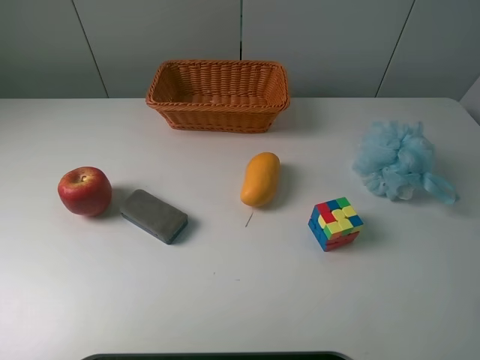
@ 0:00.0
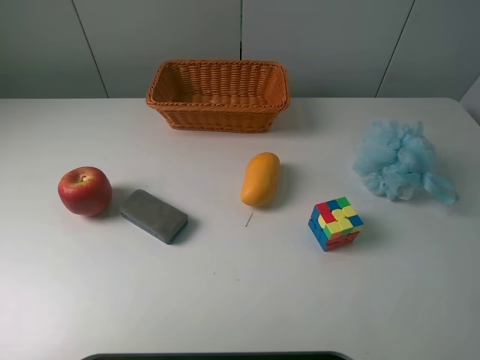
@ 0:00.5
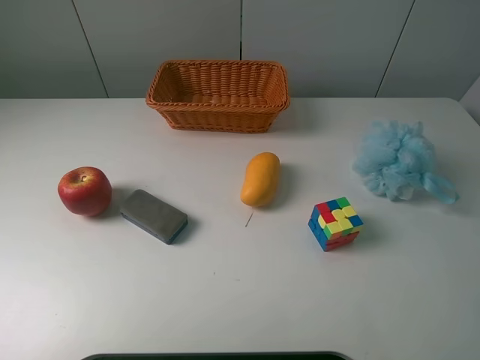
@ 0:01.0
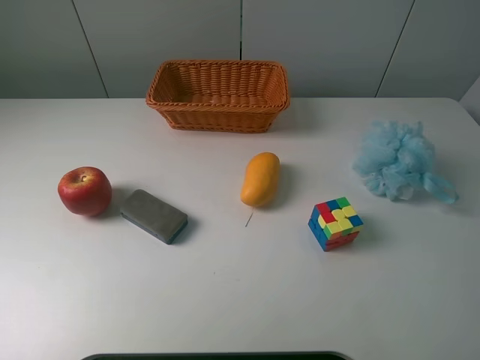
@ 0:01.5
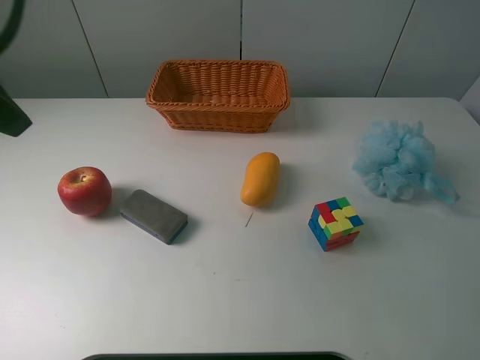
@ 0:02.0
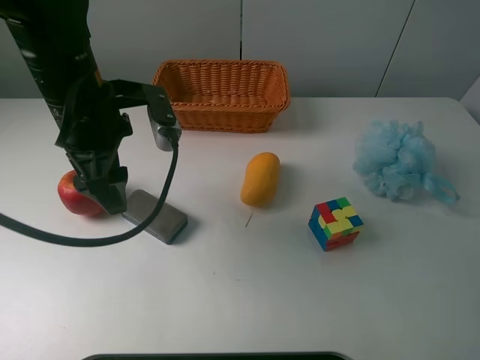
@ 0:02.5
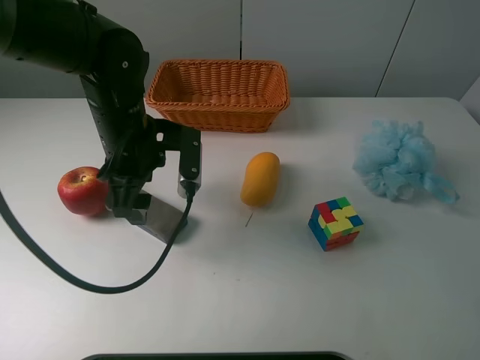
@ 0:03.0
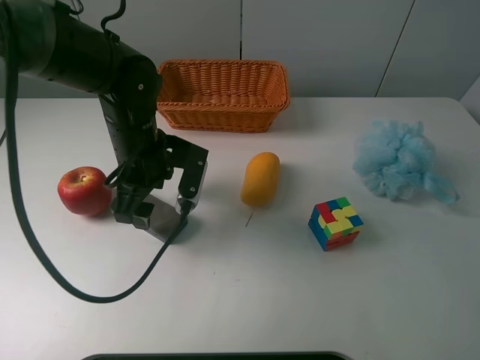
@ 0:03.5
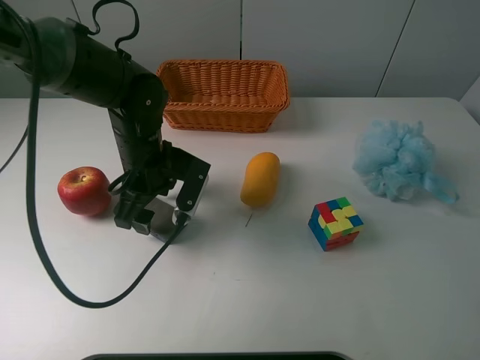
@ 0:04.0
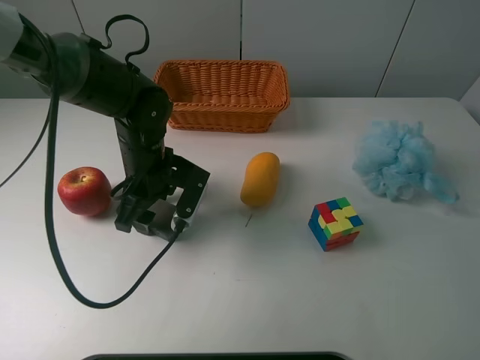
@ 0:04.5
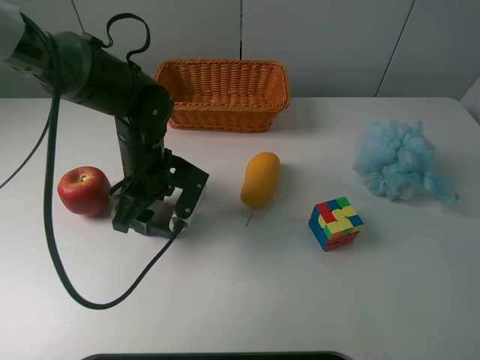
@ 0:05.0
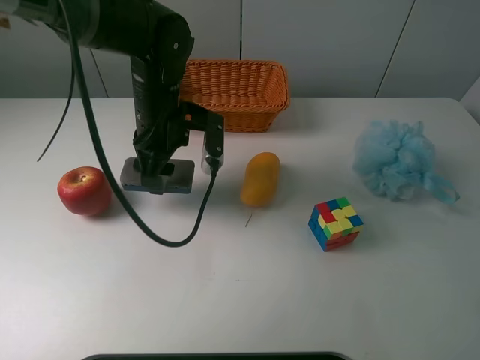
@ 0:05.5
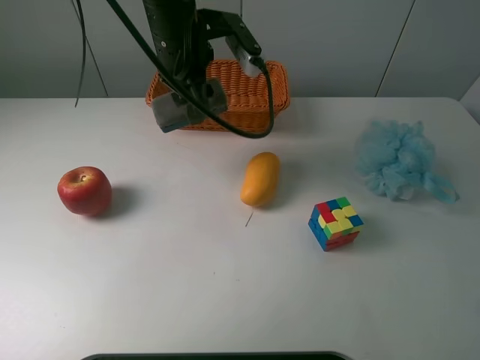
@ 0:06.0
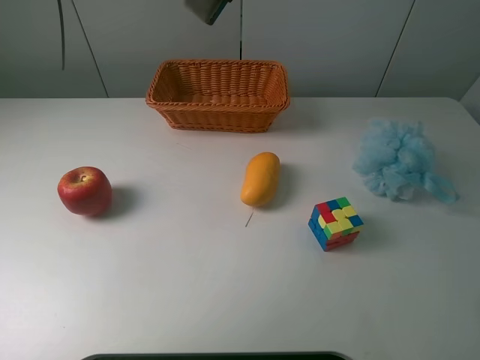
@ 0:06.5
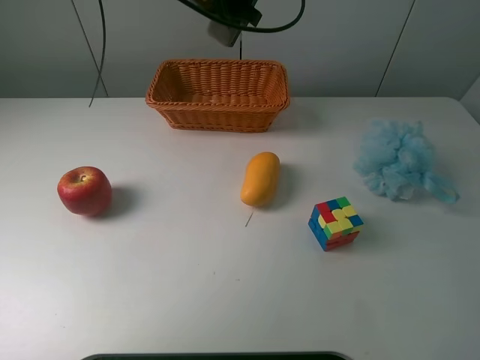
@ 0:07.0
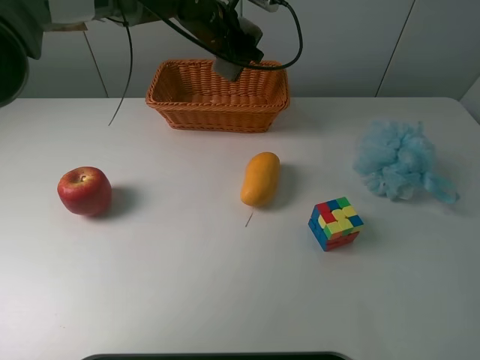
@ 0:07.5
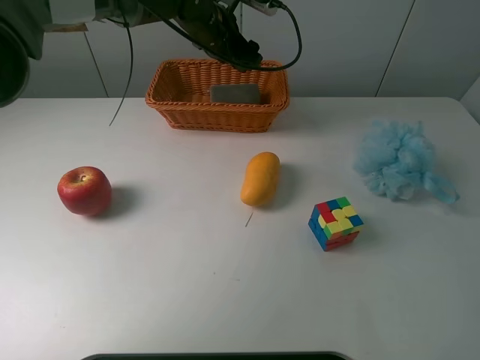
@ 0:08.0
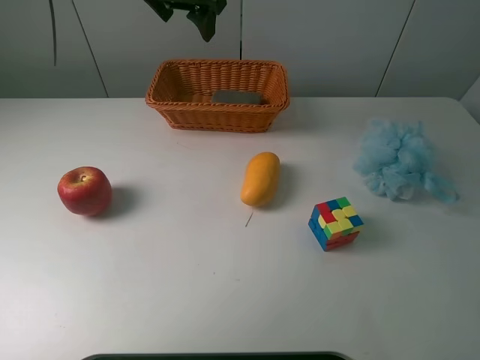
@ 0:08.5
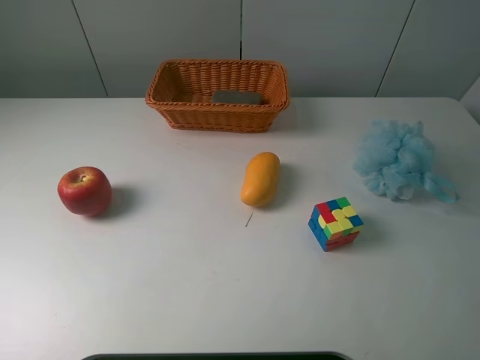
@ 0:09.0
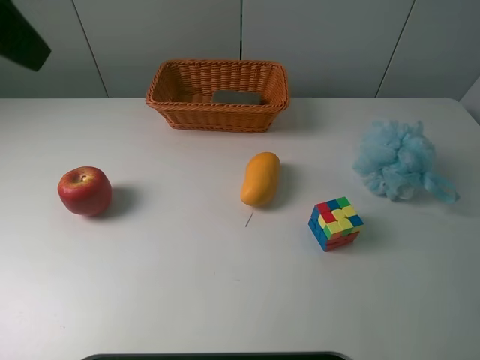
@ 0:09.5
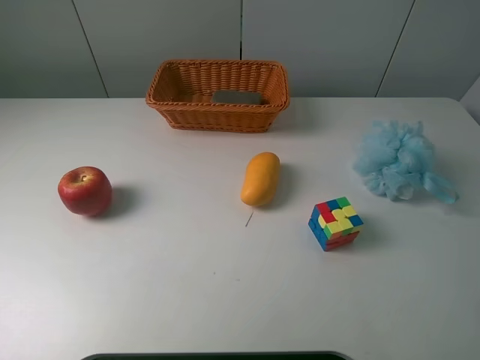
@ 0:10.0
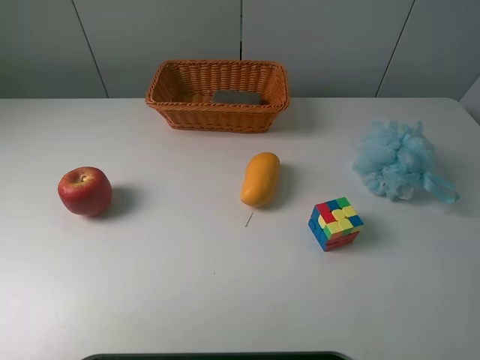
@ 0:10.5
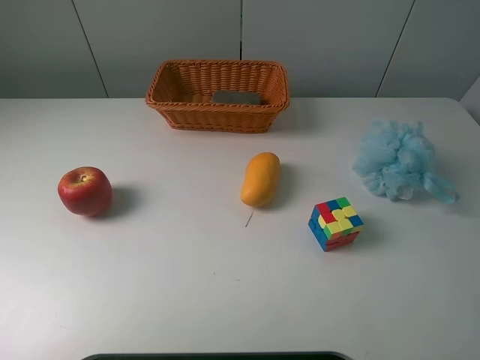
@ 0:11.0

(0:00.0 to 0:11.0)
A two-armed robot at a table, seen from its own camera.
Task of the whole recording: use a picker to grab the item closest to the apple and place it in the basket.
Step, 0:00.0 - 0:04.5: Grasp the chalkboard eraser with the left gripper.
Step, 0:05.0 - 0:08.0: Place the chalkboard eraser into the basket with the left gripper.
0:02.0 - 0:03.5: The left gripper heads downward, to the right and forward, covering about 30 cm.
0:03.5 - 0:05.5: The left gripper closes its fingers.
0:05.5 - 0:07.5: The left gripper heads forward, upward and to the right, covering about 20 cm.
0:07.5 - 0:09.0: The left gripper travels upward, backward and to the left by approximately 25 cm, and opens up.
